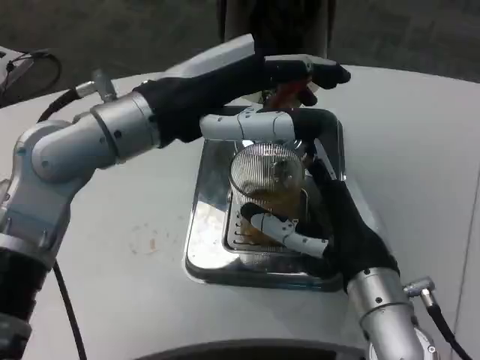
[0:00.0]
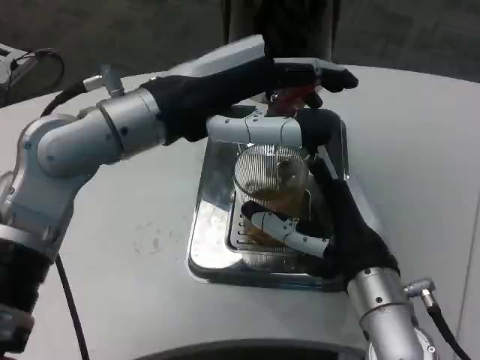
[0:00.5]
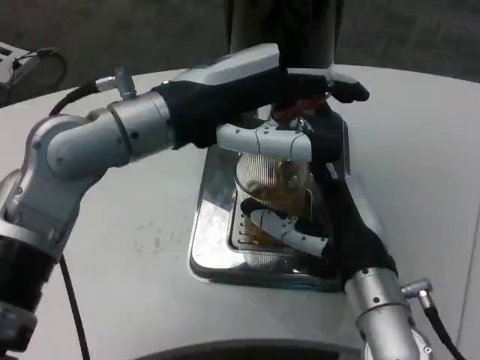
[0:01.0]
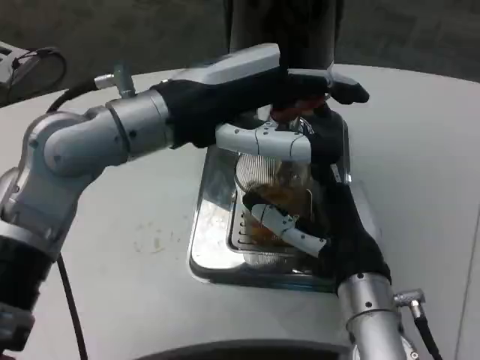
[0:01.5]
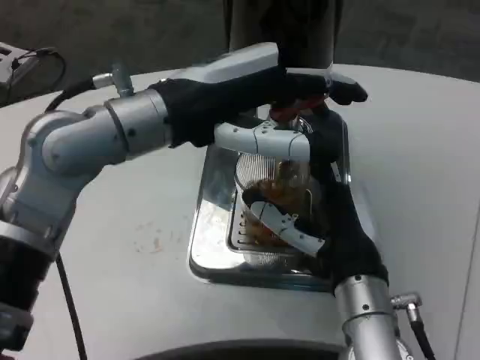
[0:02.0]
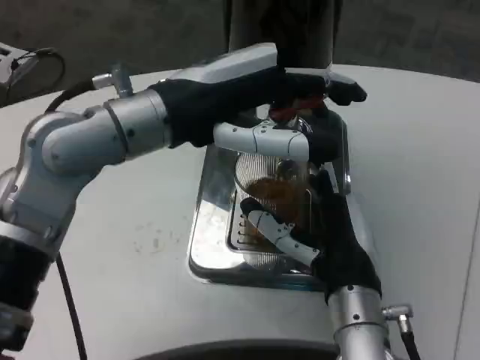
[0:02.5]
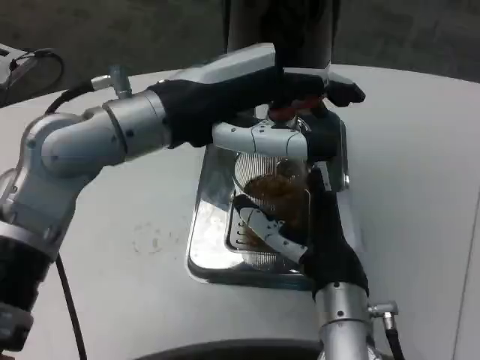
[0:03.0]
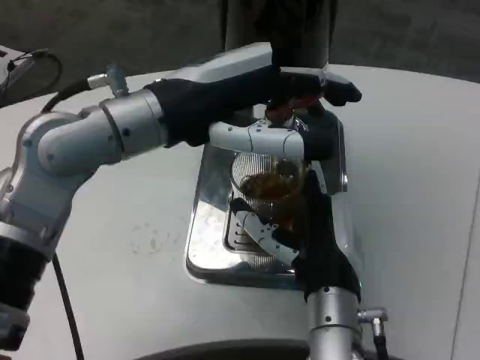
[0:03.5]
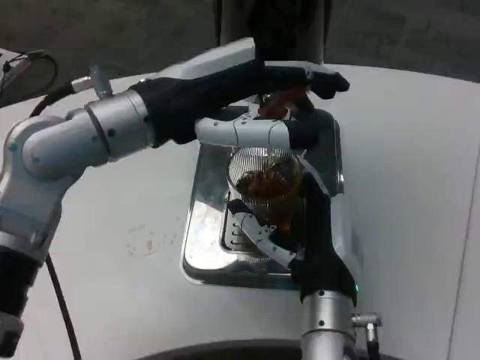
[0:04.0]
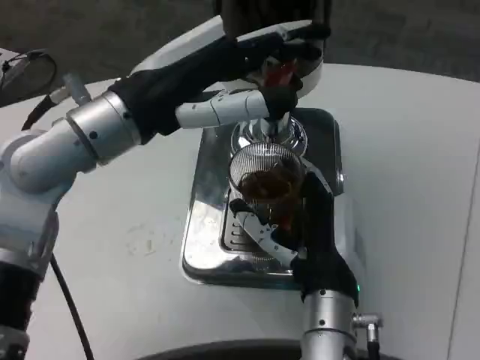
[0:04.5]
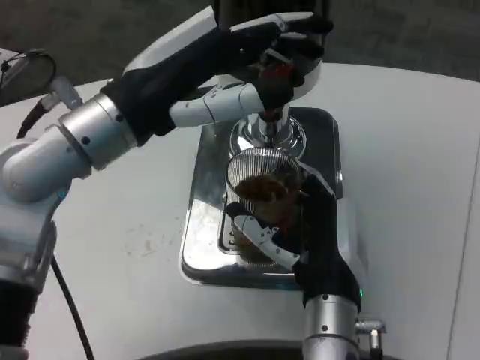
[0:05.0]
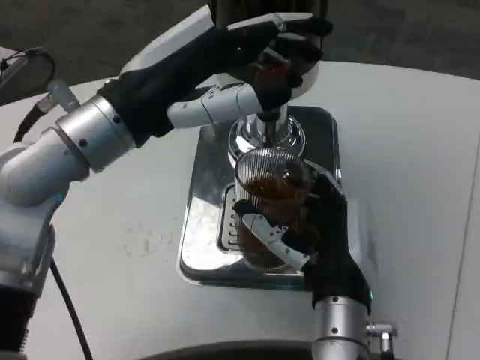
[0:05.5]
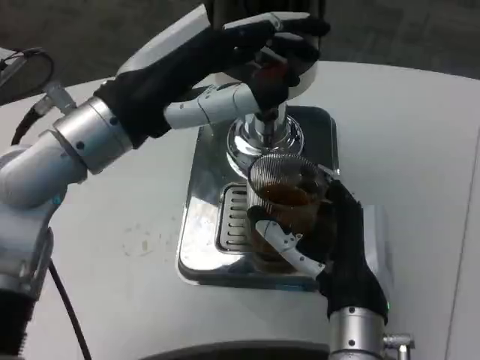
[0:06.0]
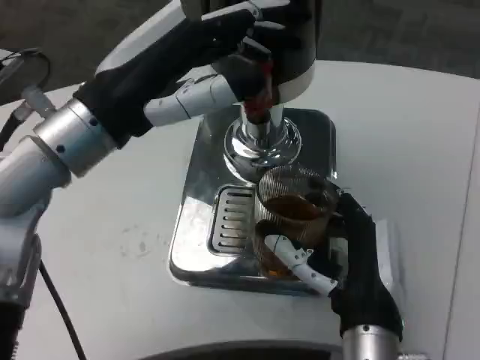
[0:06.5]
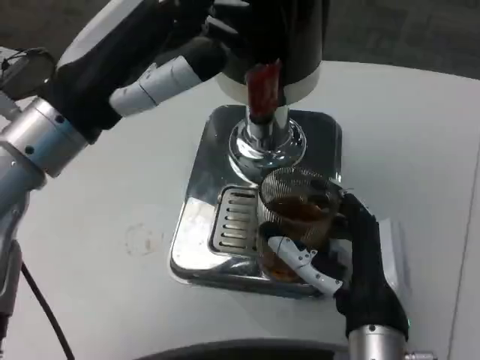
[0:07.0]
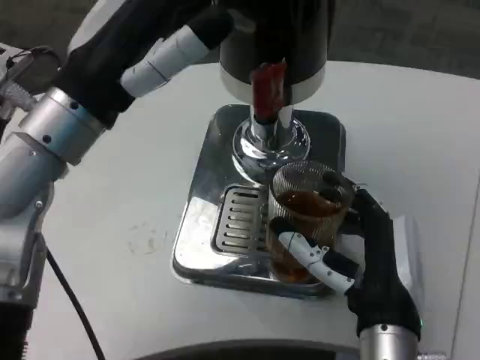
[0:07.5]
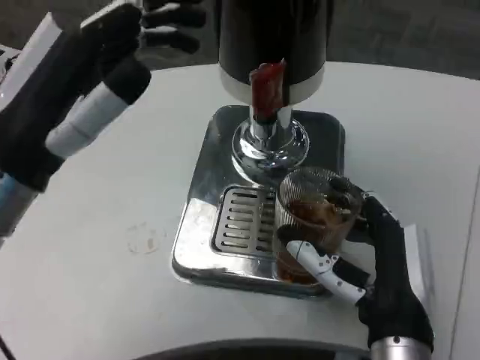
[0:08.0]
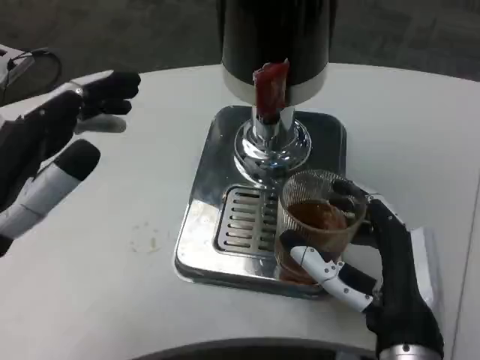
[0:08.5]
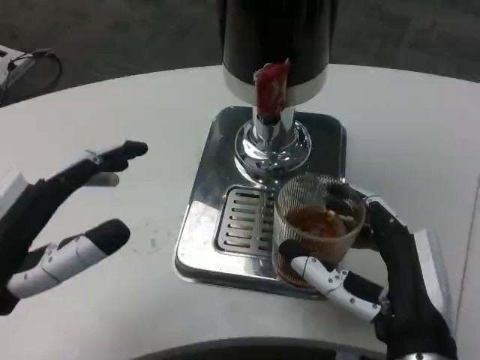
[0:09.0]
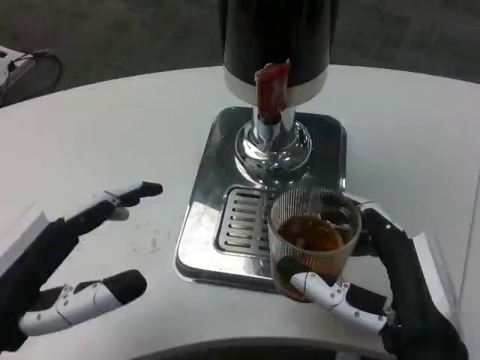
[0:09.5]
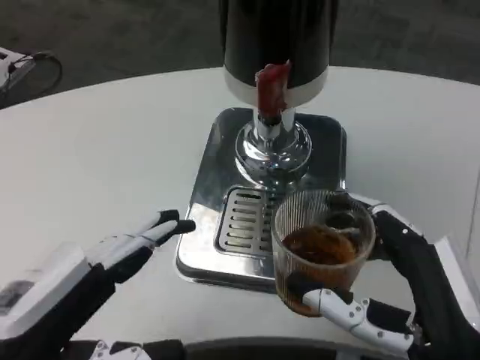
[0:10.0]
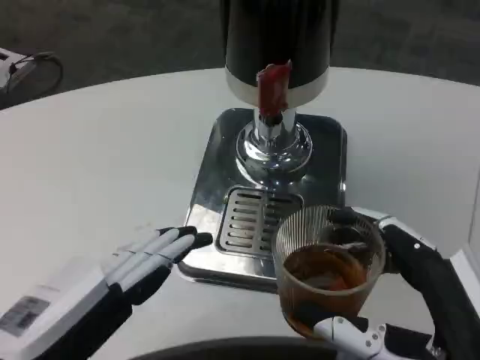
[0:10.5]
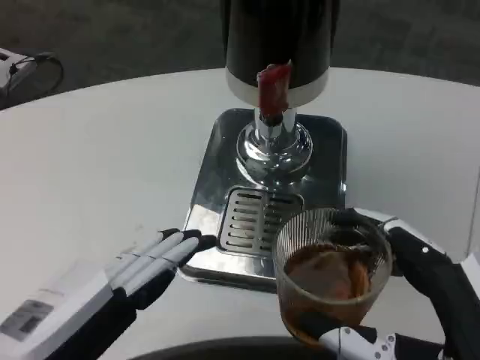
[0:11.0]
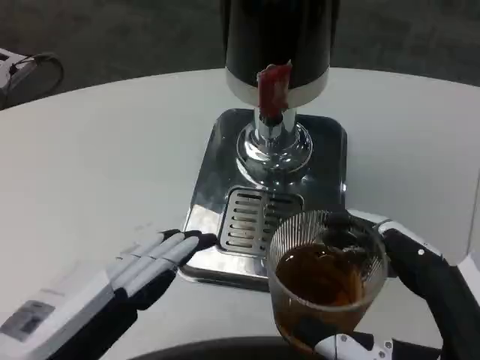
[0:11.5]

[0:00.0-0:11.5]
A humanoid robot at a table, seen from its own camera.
Task of the whole recording: Grasp the cup under the faucet to collect the drink, then remove the cup.
0:07.5 to 0:09.5: The right hand shifts by roughly 5 cm, while the left hand heads downward, backward and to the left, covering about 20 cm.
0:09.5 to 0:11.5: The left hand ends up some 5 cm from where it was; the right hand moves backward, about 5 cm.

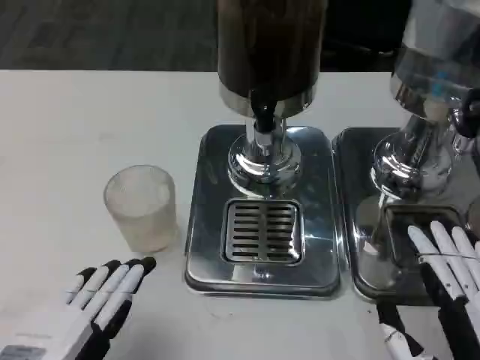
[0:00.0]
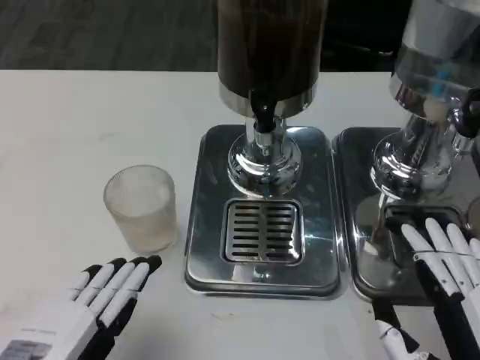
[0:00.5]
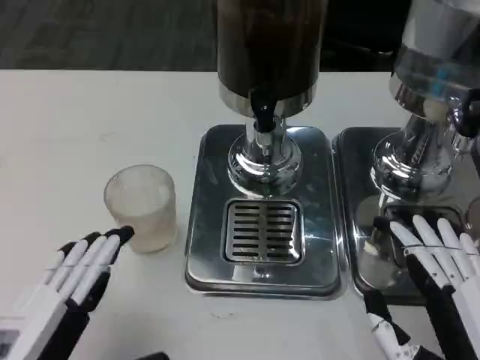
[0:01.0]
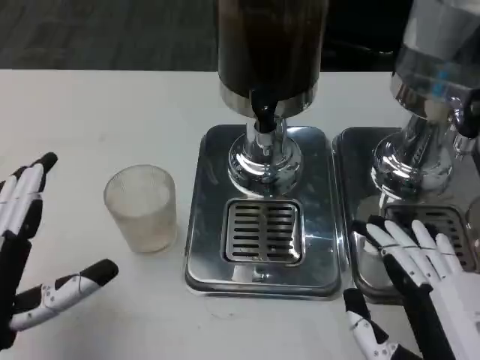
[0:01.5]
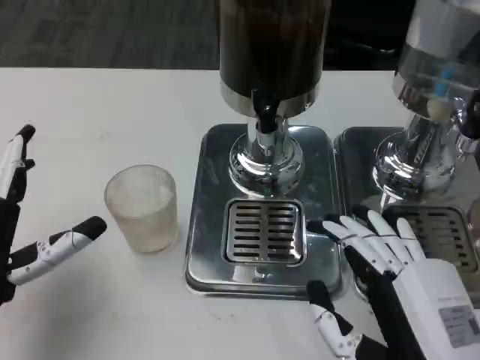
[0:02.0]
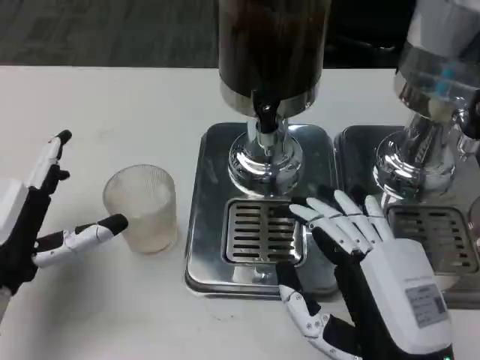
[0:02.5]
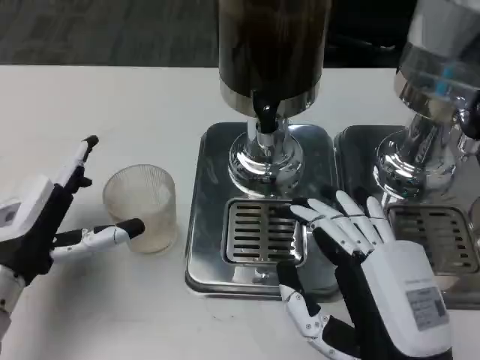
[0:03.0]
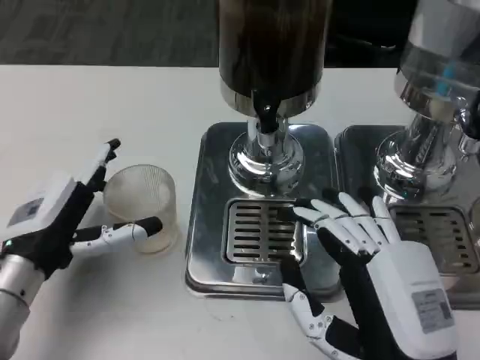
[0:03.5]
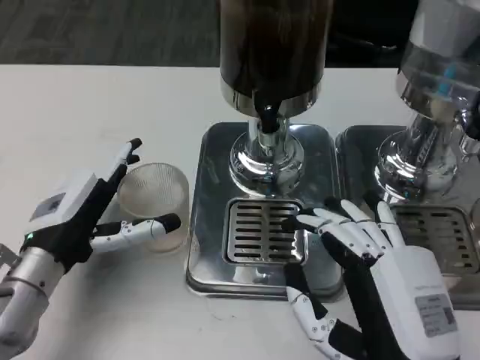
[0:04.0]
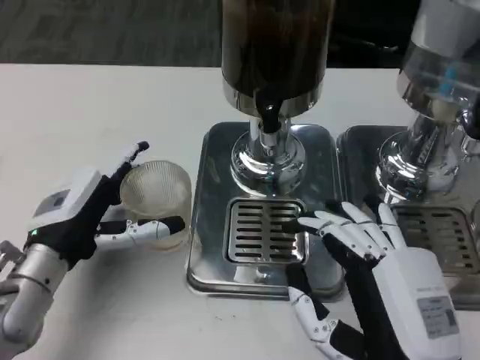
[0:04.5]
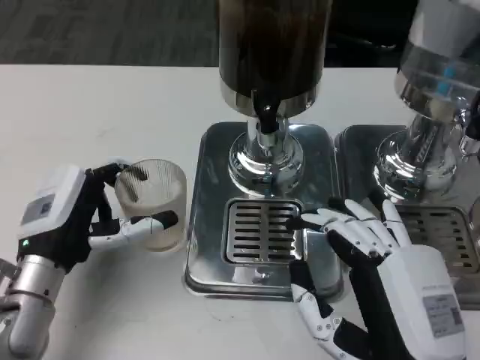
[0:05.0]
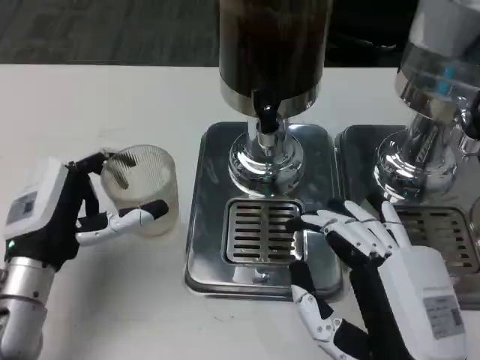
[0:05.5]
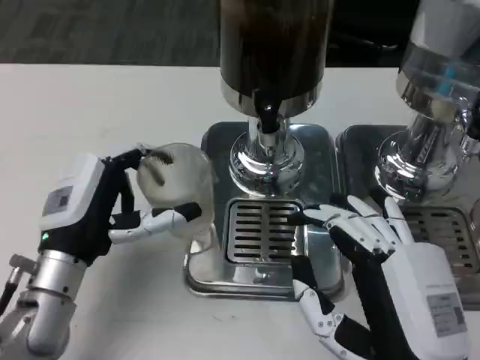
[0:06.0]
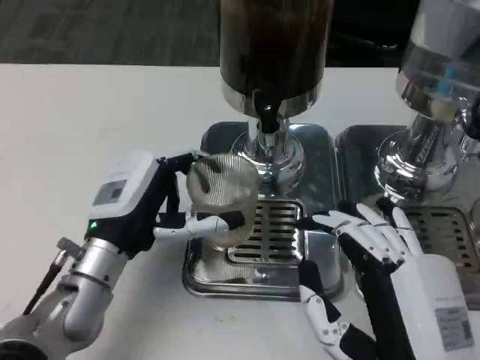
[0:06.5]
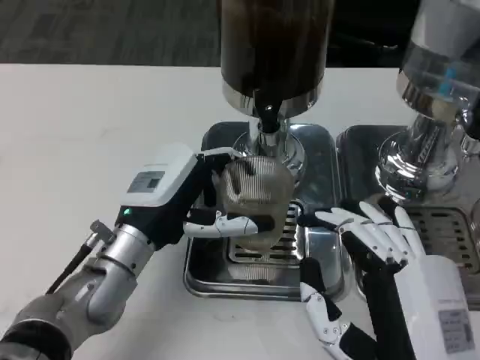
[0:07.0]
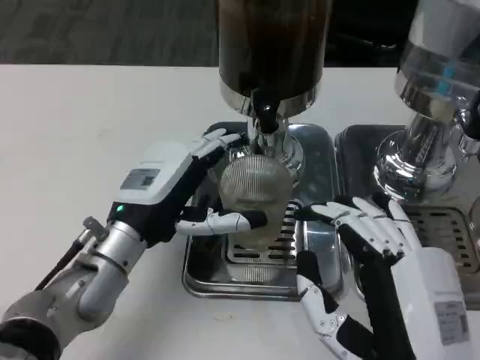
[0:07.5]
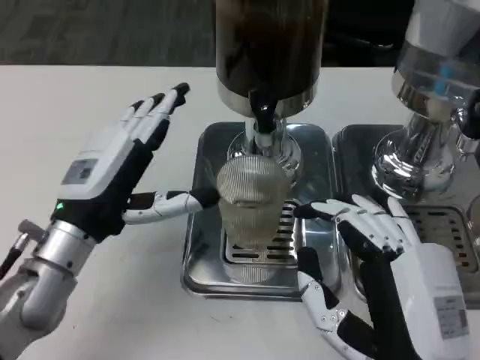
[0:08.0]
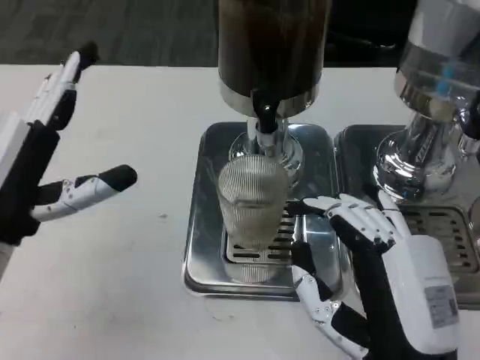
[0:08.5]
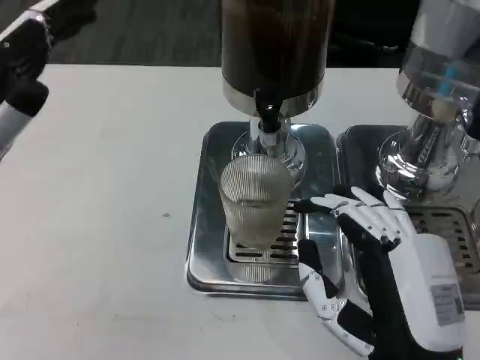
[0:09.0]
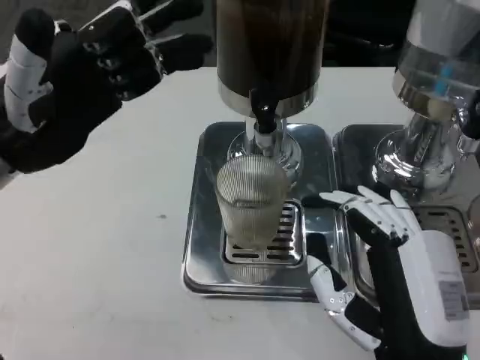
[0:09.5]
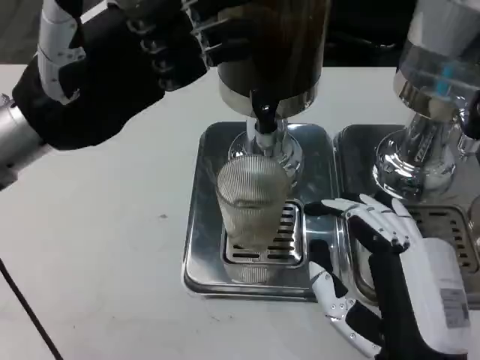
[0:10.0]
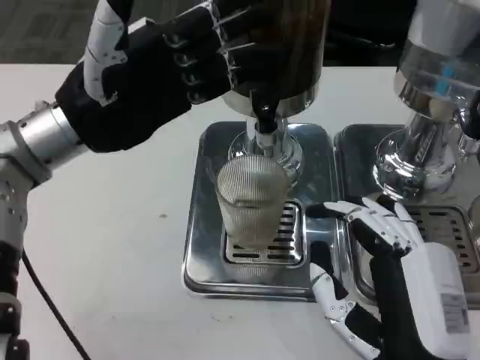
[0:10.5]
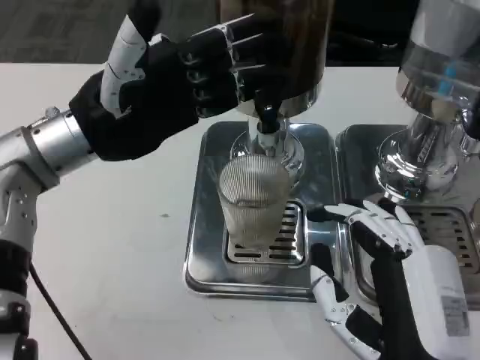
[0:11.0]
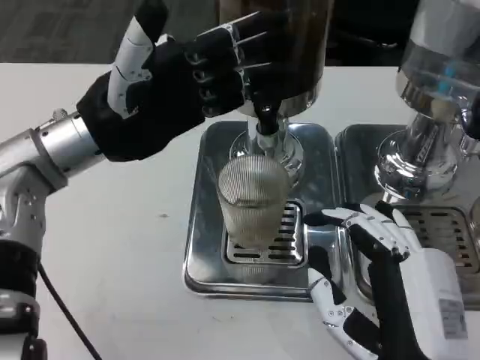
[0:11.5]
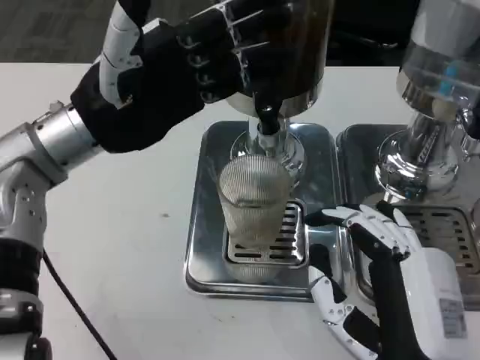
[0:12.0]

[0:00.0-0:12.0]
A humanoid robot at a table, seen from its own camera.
Task of the whole recording: Grasp the cup under the faucet to collect the drink, then remove the cup.
0:00.0 to 0:02.0: The left hand goes roughly 10 cm forward. Meanwhile the right hand ends up about 5 cm from where it was.
0:02.0 to 0:04.0: The left hand shifts approximately 5 cm forward.
0:08.0 to 0:10.0: The left hand is displaced upward by some 15 cm.

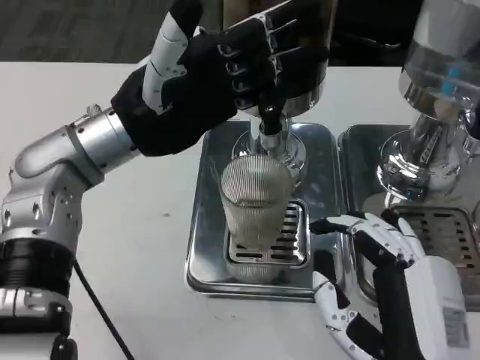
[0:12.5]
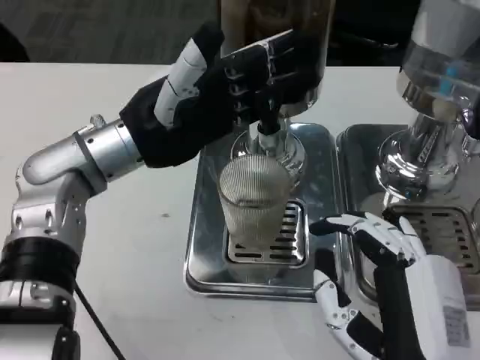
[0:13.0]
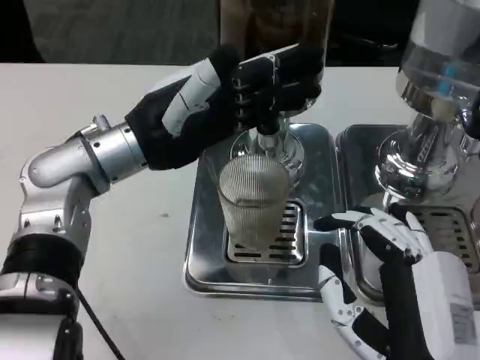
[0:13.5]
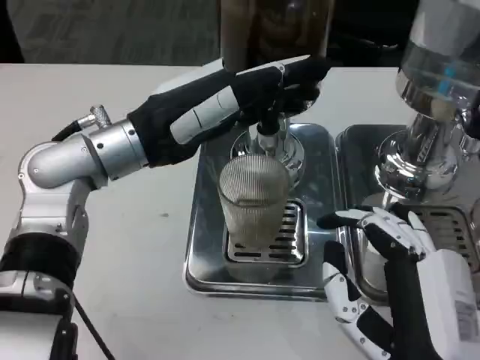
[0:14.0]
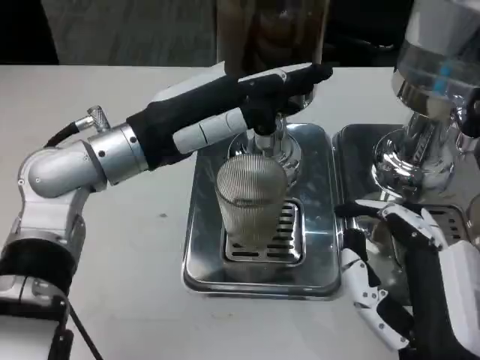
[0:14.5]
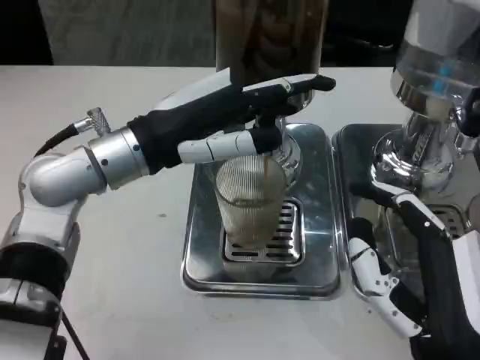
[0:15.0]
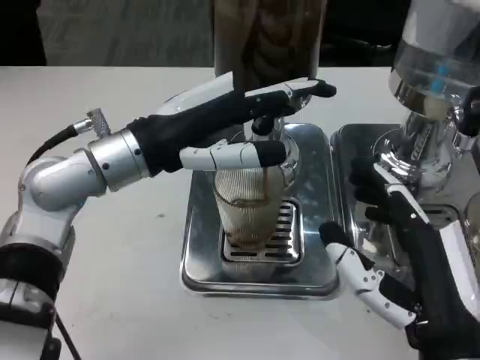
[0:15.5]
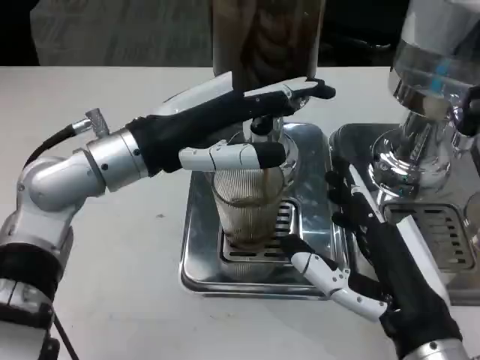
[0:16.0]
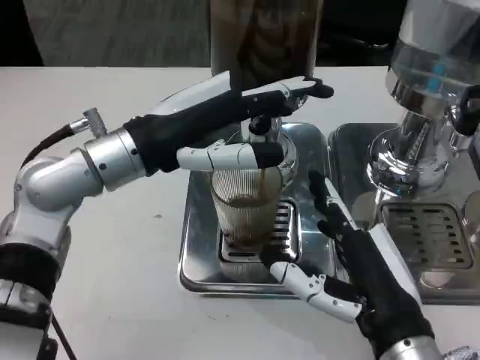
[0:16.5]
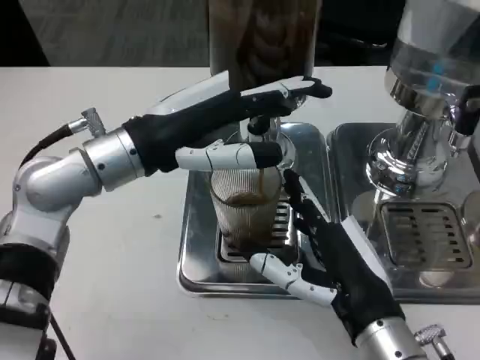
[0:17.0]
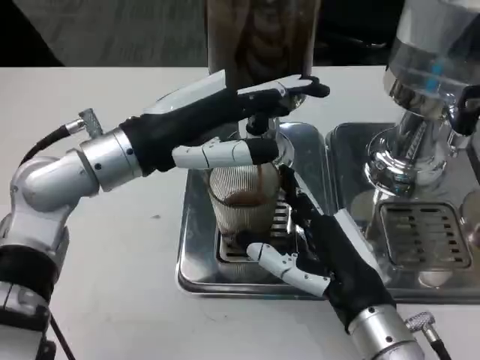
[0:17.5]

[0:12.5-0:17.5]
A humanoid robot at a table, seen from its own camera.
Task of the whole recording: Grasp the cup under the faucet to collect the drink, then remove the cup.
0:15.0 to 0:17.5: The right hand moves forward, some 5 cm.
